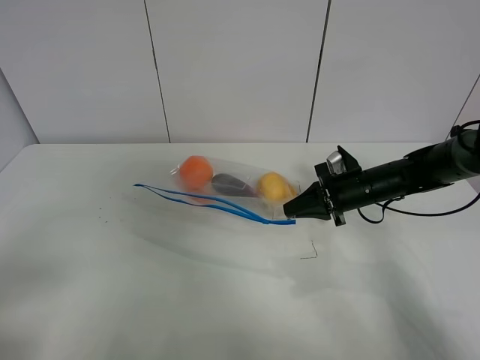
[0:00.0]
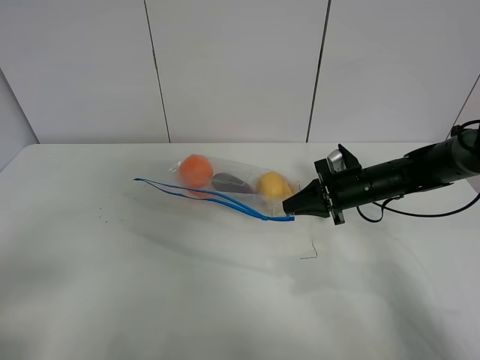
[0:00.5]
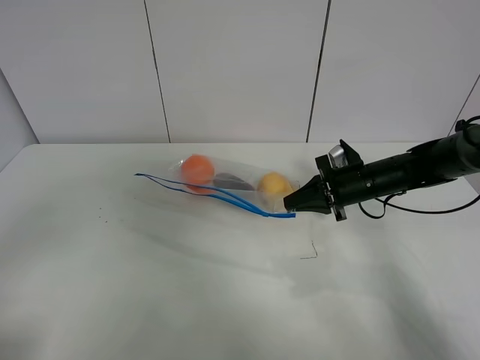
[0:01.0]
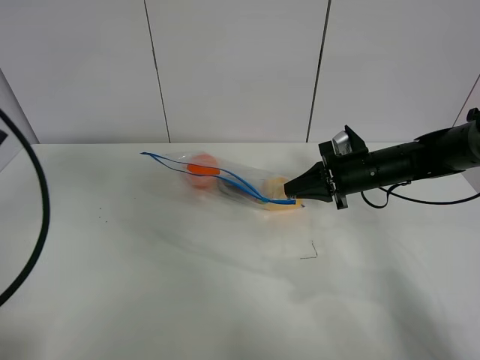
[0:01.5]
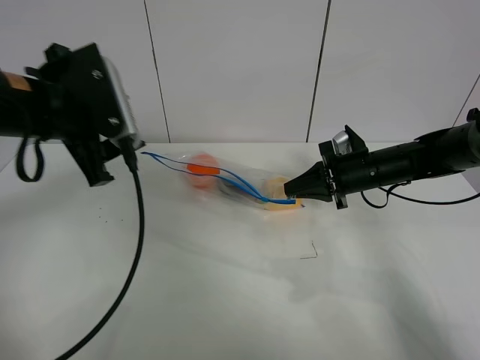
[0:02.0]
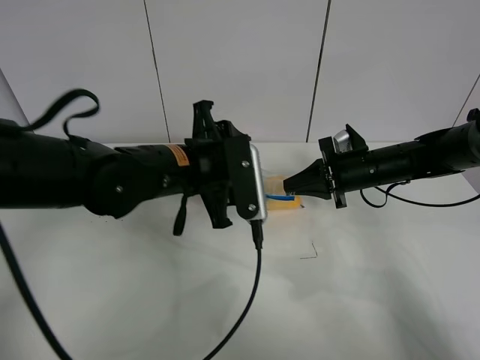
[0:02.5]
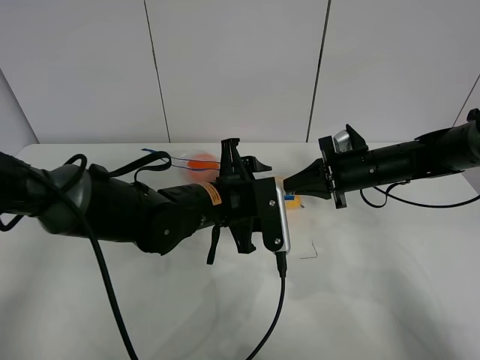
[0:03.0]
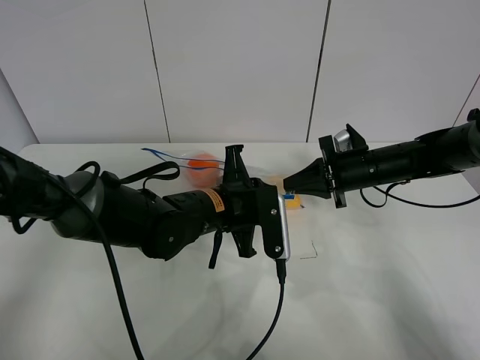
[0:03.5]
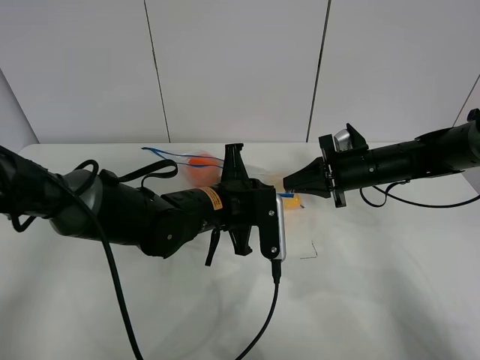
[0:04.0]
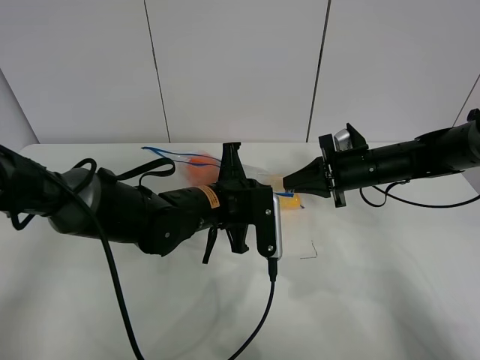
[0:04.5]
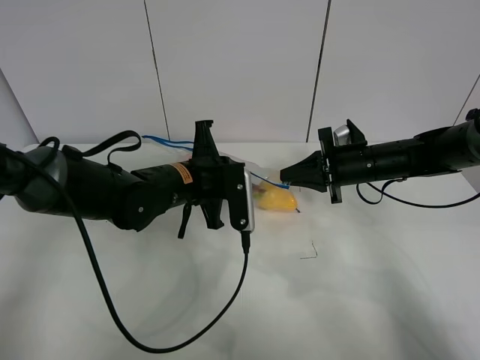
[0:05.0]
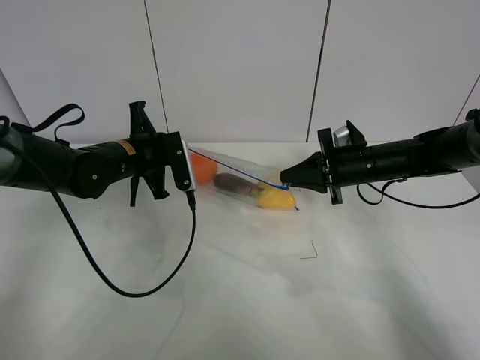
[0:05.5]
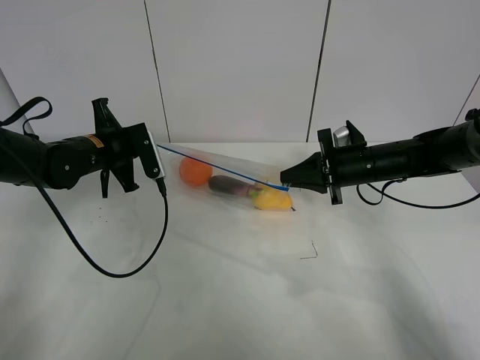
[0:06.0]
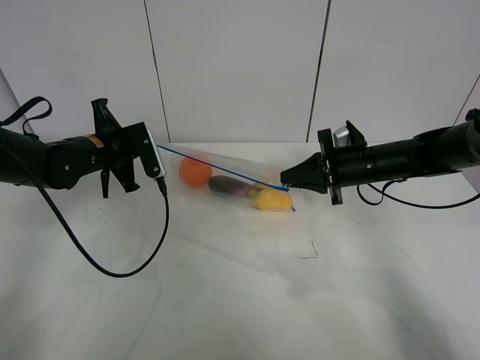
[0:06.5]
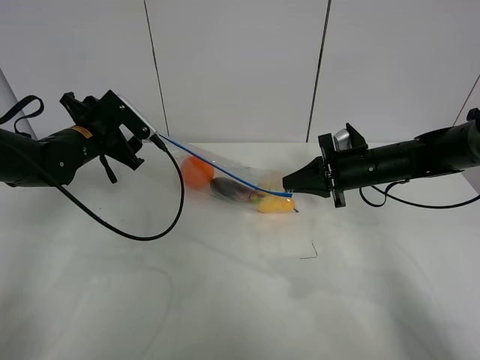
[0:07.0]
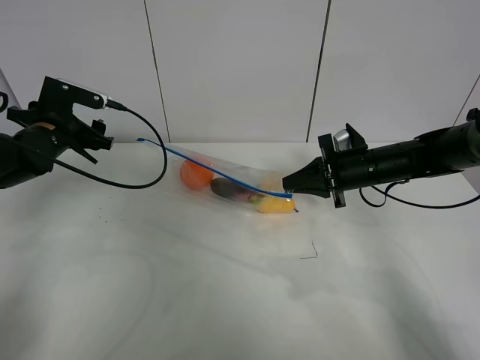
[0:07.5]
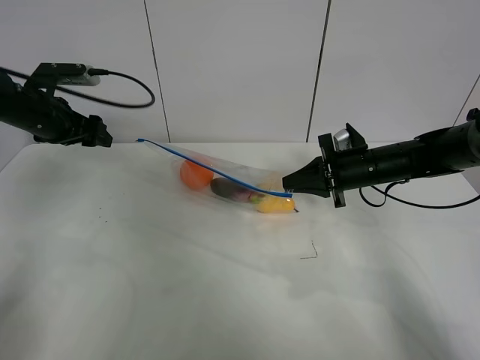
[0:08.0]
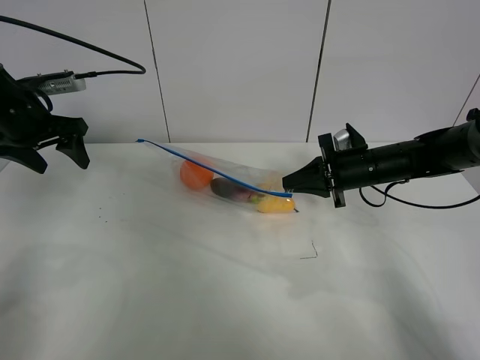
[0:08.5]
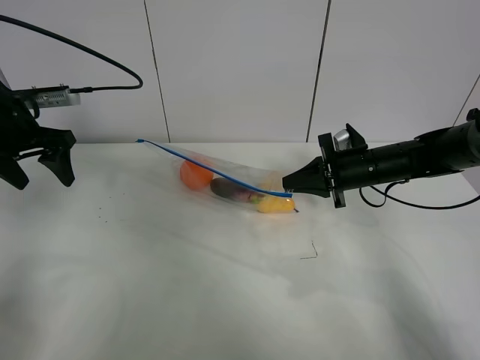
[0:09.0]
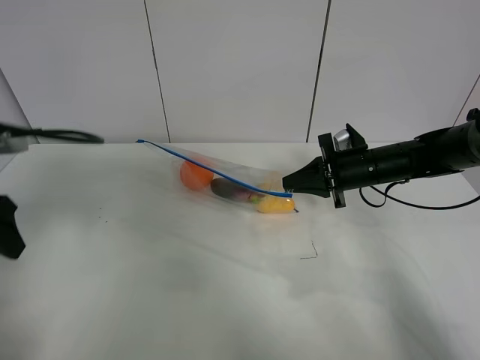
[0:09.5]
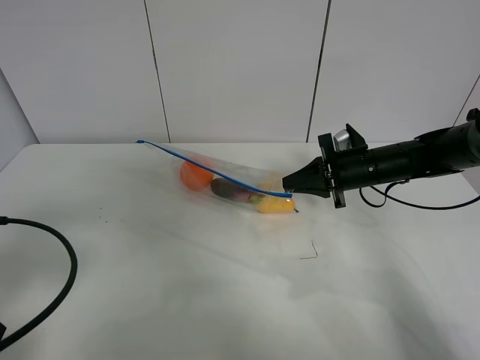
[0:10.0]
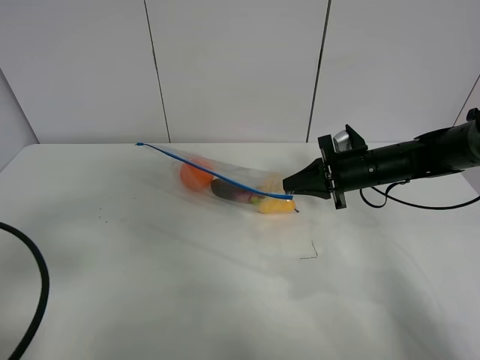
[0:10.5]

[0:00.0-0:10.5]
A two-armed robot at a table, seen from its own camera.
Step, 0:02.0 to 0:06.5: Pull the fruit bag with left gripper.
0:00.0 to 0:02.0: The left gripper goes roughly 30 cm forward and to the right.
0:02.0 to 0:04.0: The left gripper is displaced to the right and downward by roughly 20 cm, and closes up.
0:04.0 to 0:06.5: The left gripper moves to the left and forward, roughly 20 cm.
0:06.5 to 0:08.5: The left gripper shifts about 15 cm to the left and upward, and opens.
0:08.5 to 0:10.5: The left gripper shifts approximately 30 cm backward.

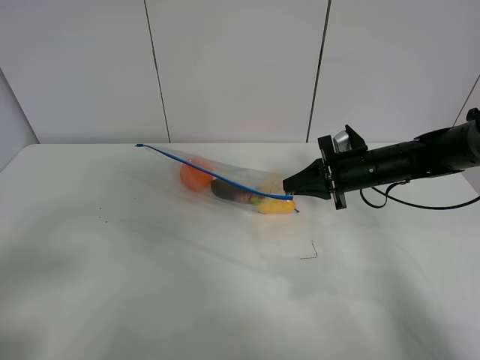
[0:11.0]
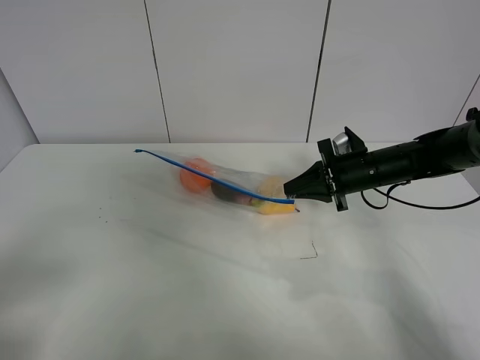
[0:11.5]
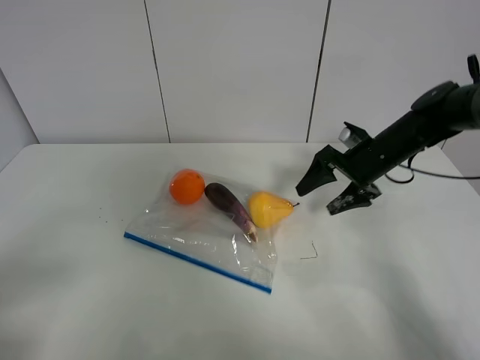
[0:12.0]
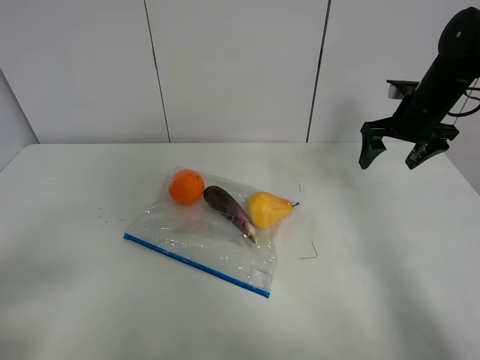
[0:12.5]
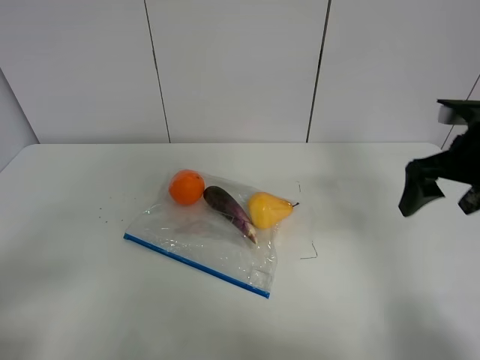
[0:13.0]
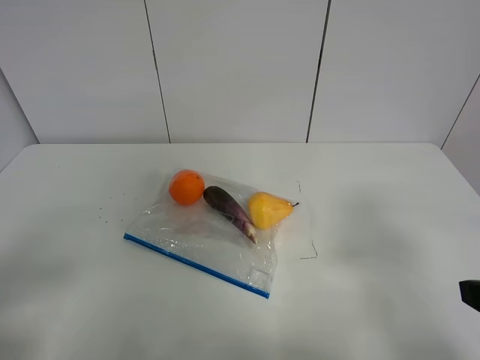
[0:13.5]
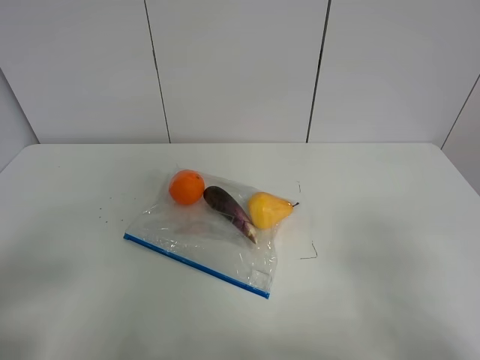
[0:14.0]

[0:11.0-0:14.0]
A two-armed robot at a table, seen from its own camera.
0:11.0 to 0:12.5: The right gripper heads upward and to the right, covering some 10 cm, and opens.
0:12.5 to 0:14.0: The right gripper moves backward, about 40 cm.

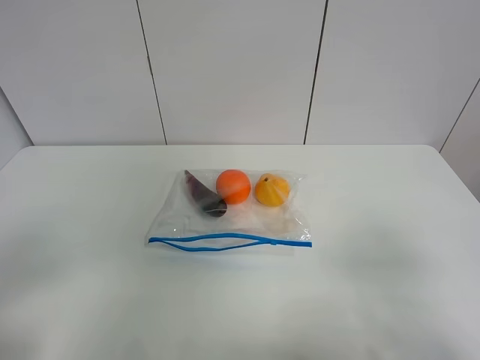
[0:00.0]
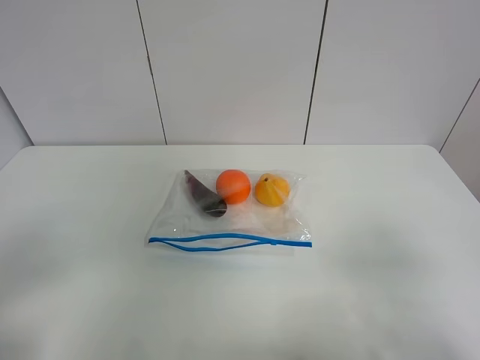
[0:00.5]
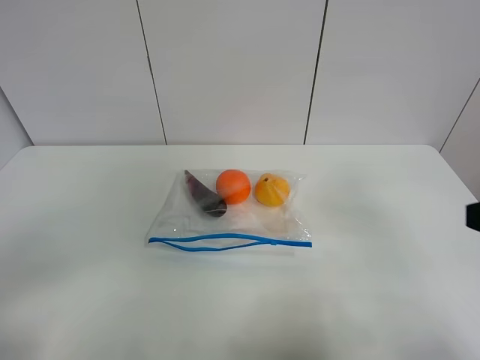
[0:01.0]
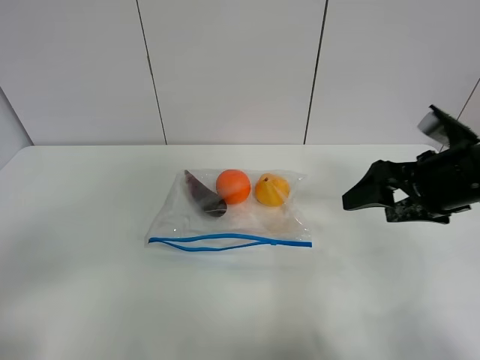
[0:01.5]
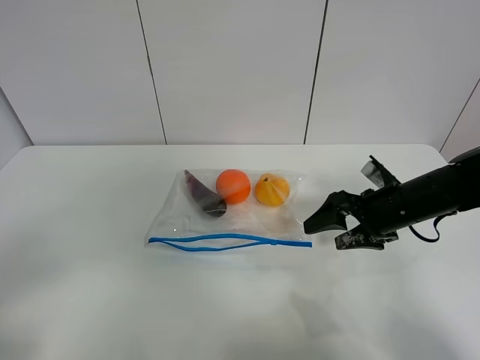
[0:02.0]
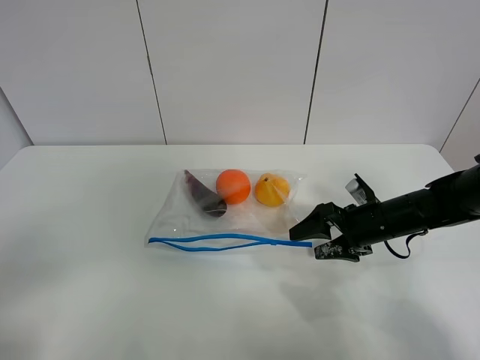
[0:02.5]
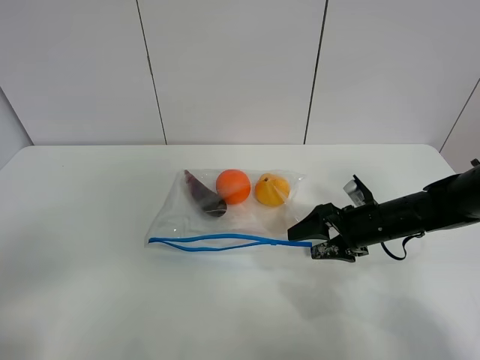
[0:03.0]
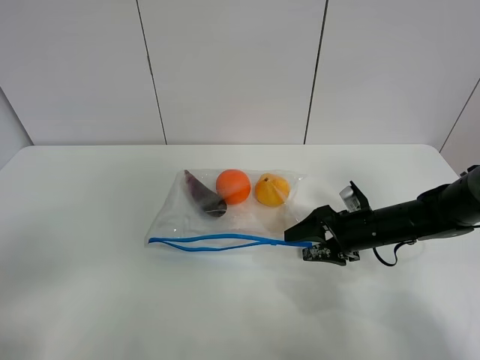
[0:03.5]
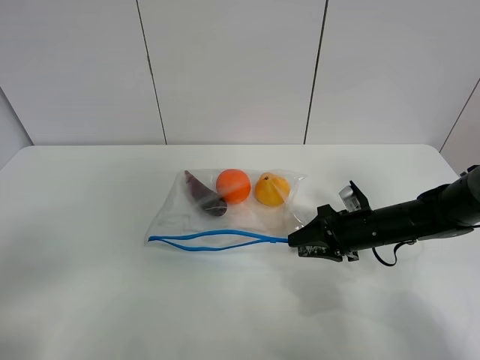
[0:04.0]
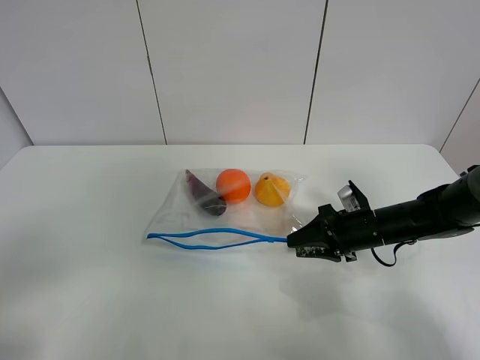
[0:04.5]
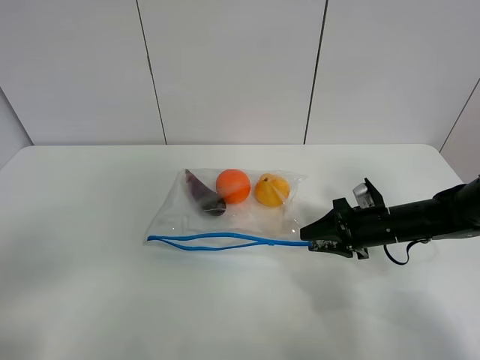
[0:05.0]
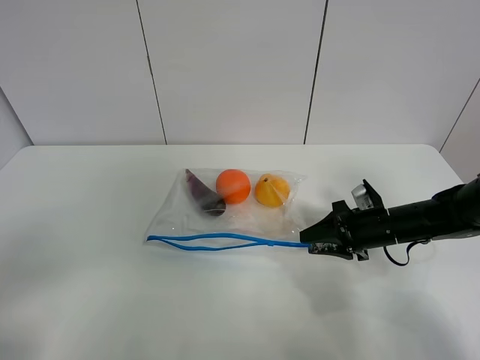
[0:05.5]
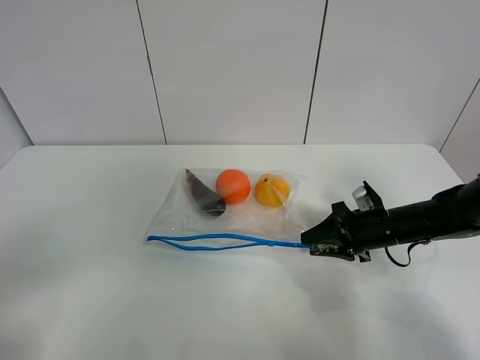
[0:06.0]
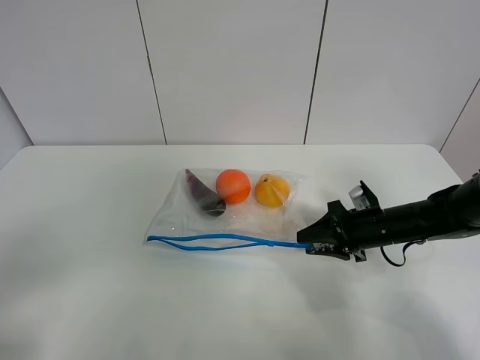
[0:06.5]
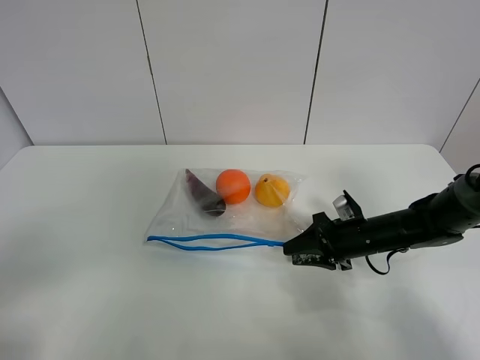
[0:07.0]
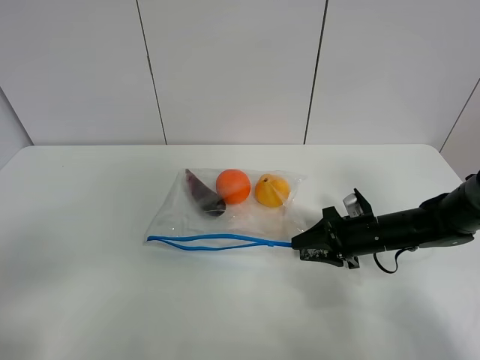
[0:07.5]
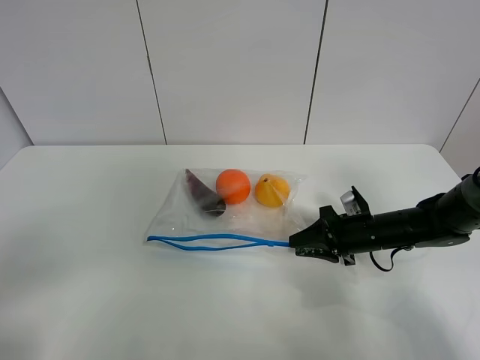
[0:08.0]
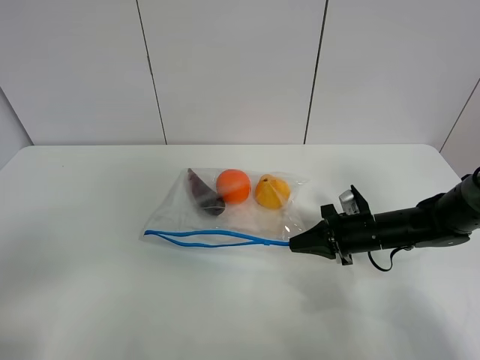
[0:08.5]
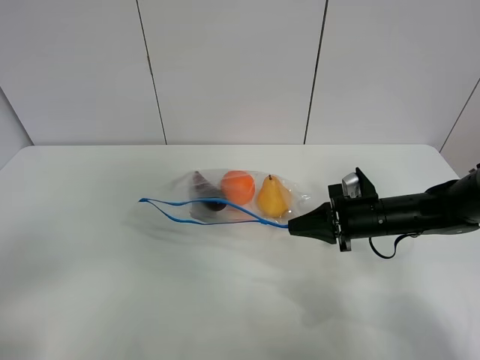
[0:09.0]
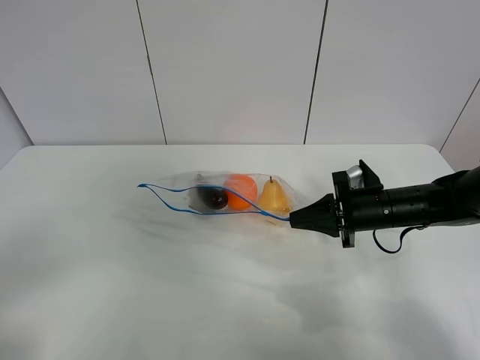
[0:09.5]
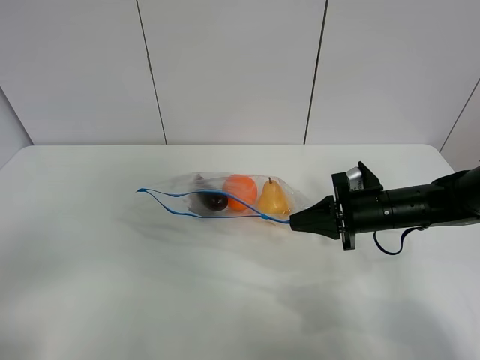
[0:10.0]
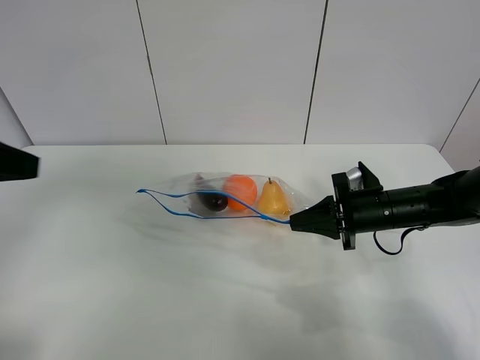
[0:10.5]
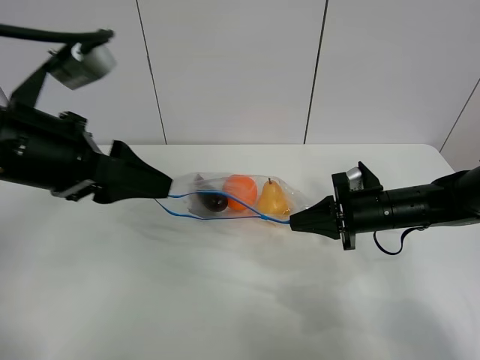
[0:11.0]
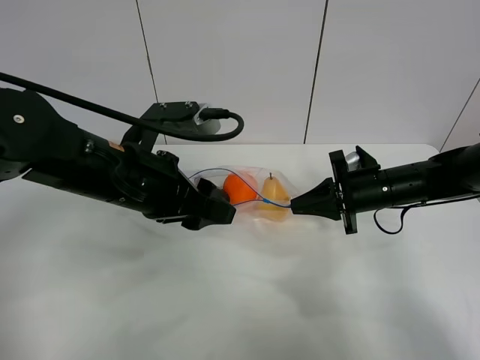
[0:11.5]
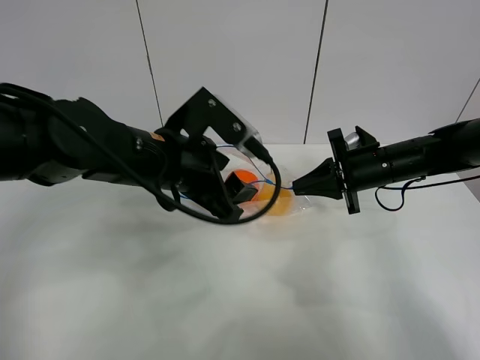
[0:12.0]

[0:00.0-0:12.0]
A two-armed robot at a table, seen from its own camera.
Step, 0:00.0 to 0:08.0: Grasp the fruit bag with right gripper.
Step, 0:08.5 to 0:11.5: Lift the fruit bag with your right gripper.
0:00.0 to 0:02.0: The right gripper is displaced forward and downward by about 30 cm.
0:02.0 to 0:04.0: The right gripper travels downward by some 5 cm, and closes its fingers.
0:04.0 to 0:08.0: The grippers move only a little.
0:08.0 to 0:10.0: The right gripper moves upward, roughly 5 cm.
0:10.0 to 0:12.0: The left gripper is displaced forward and to the right by some 35 cm; the right gripper goes about 5 cm forward.
